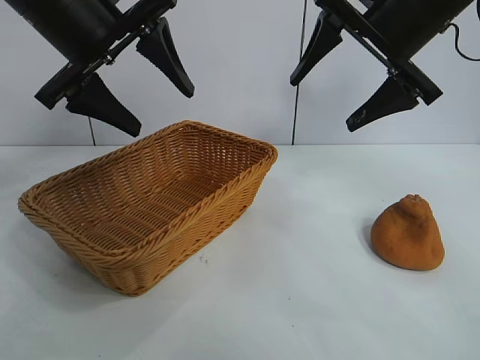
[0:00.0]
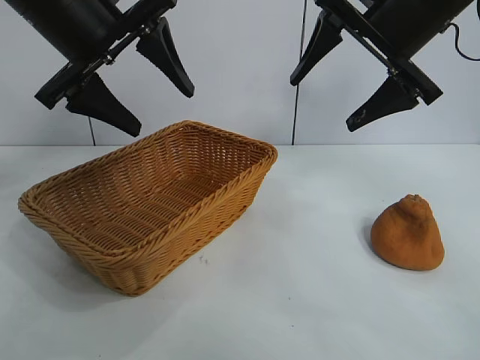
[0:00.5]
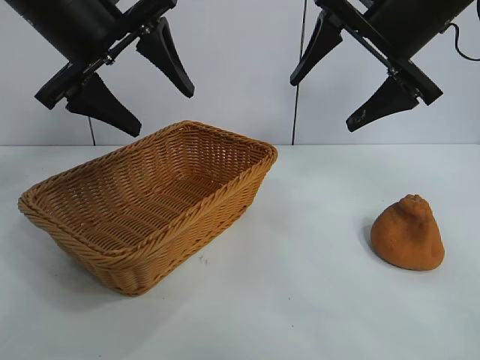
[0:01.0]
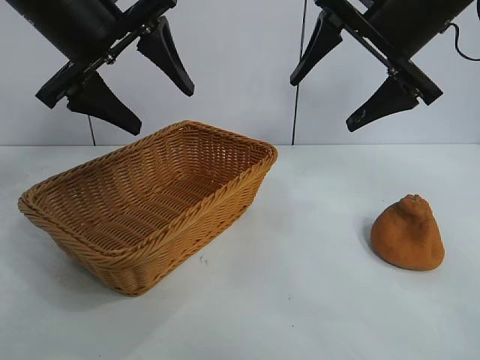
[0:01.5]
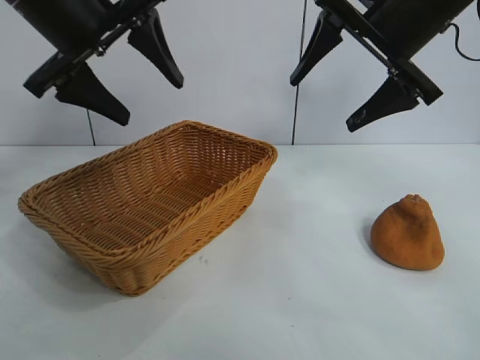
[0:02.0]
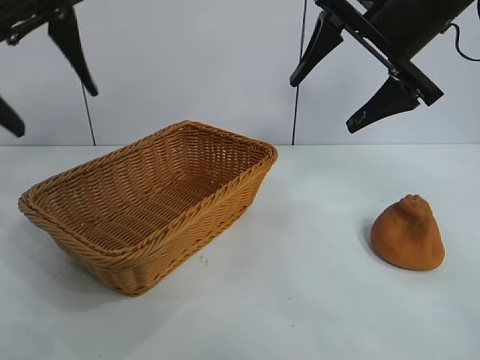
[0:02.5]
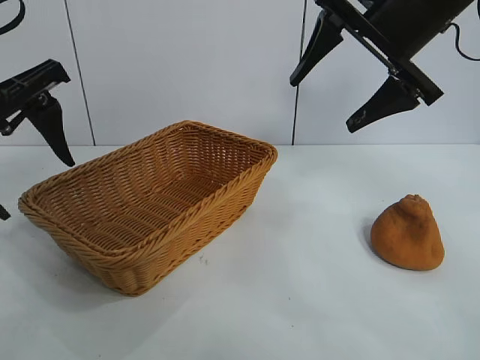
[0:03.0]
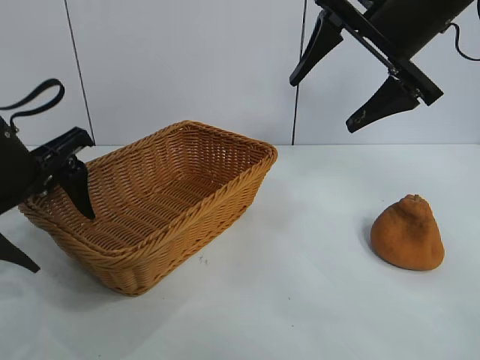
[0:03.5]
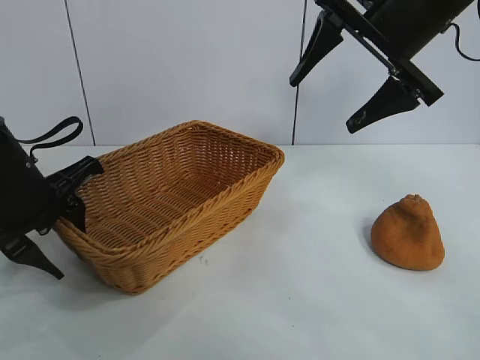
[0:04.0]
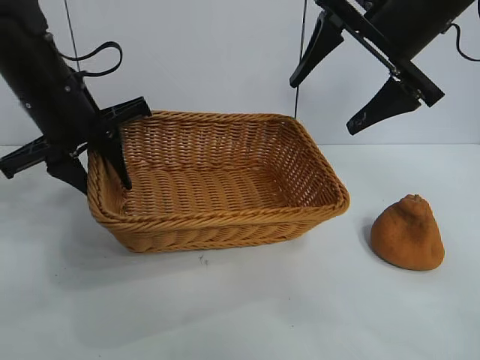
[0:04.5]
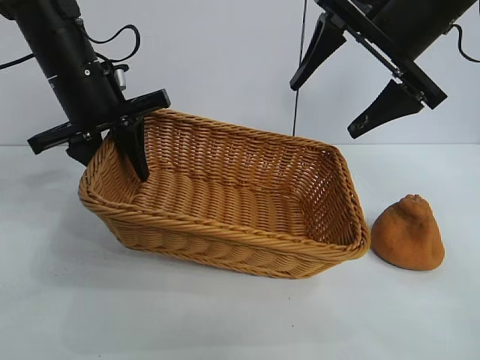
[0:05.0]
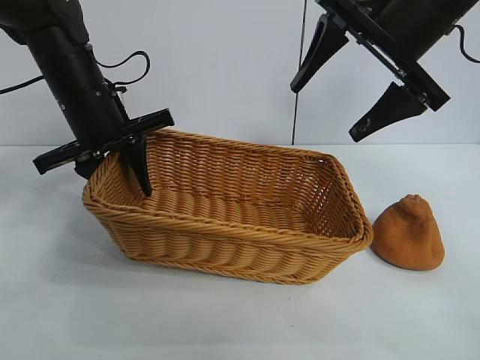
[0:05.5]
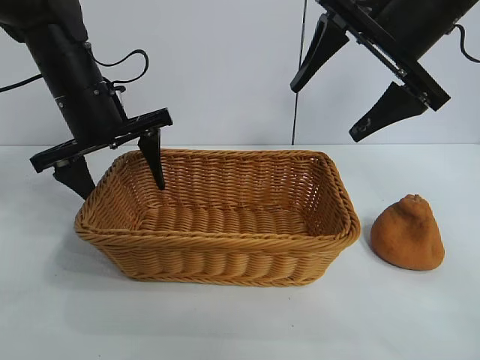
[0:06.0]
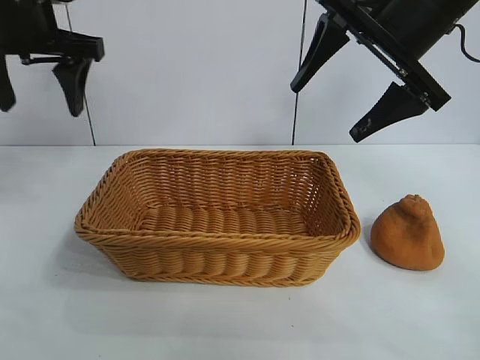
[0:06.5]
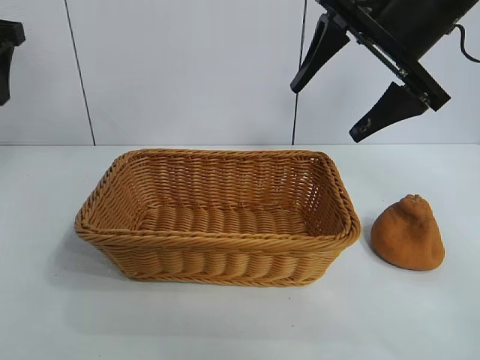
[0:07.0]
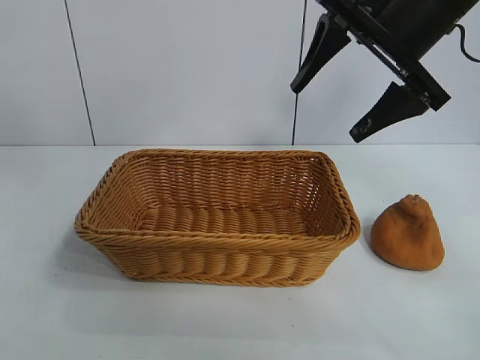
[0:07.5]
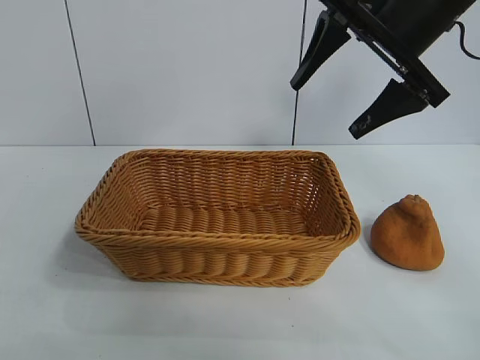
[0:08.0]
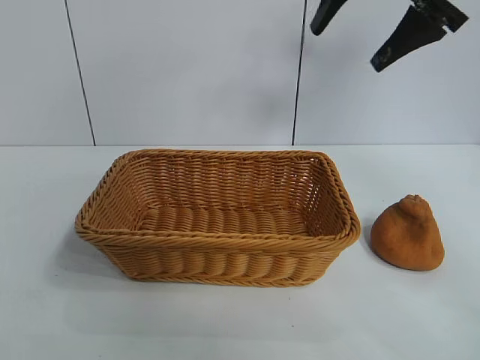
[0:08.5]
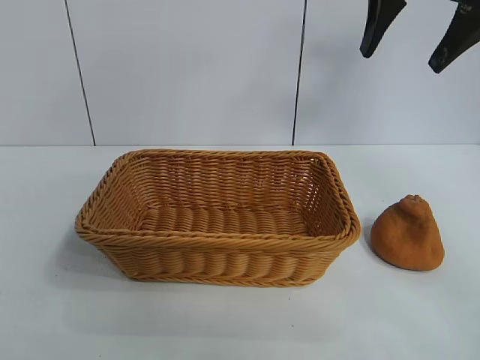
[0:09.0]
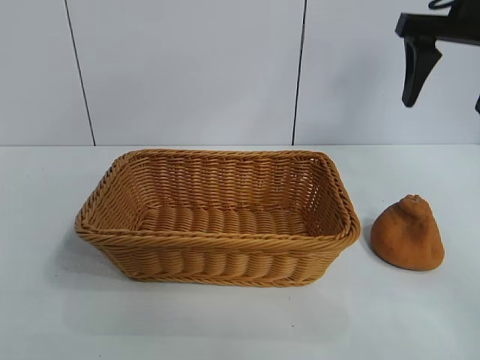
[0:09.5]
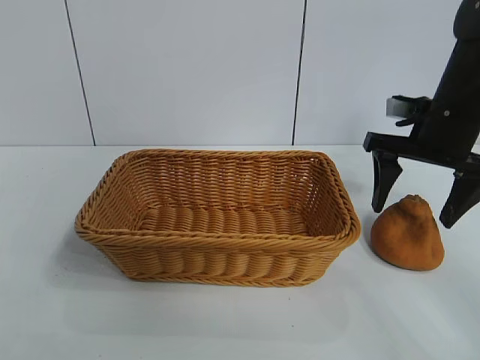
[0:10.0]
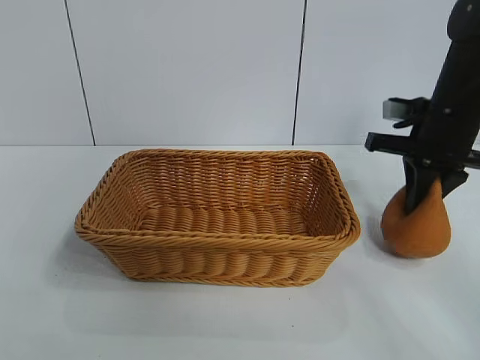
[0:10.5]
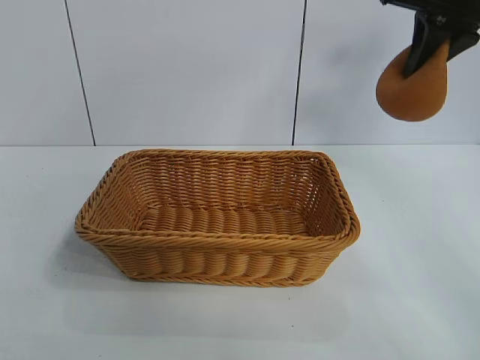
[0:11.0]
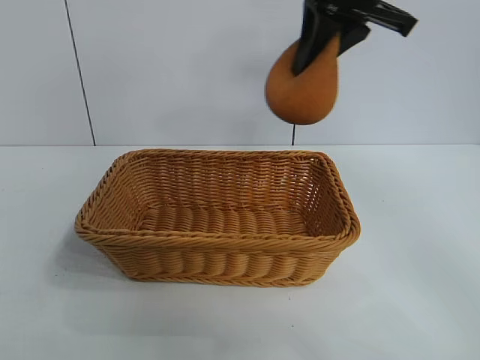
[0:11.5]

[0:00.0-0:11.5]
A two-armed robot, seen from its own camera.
Task of the whole recording: pick up the orange and put it into the basket.
Step, 0:01.5 to 0:04.0: Grasp the basket with left gripper.
Step, 0:04.5 to 0:05.5: Place the basket in the center of view with left gripper.
Step, 0:06.0 to 0:10.0: Grasp the orange with right gripper.
